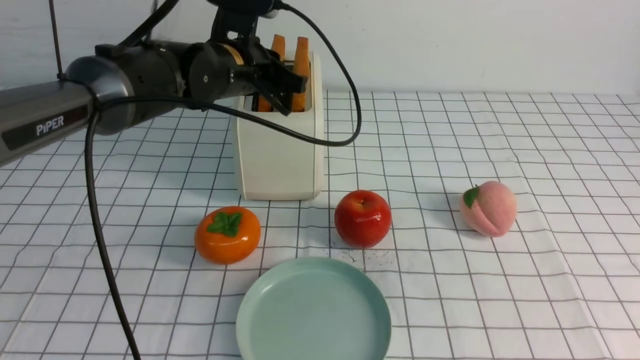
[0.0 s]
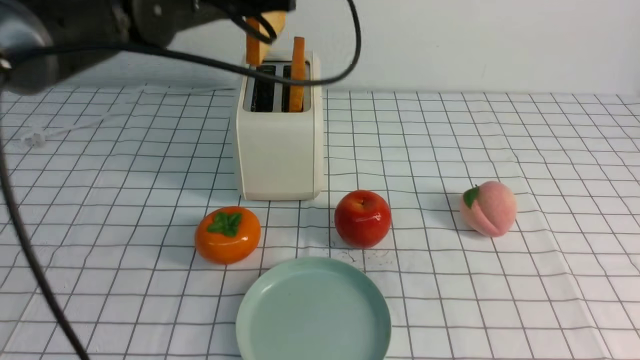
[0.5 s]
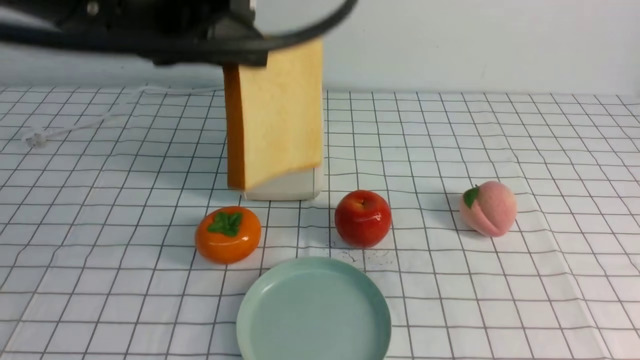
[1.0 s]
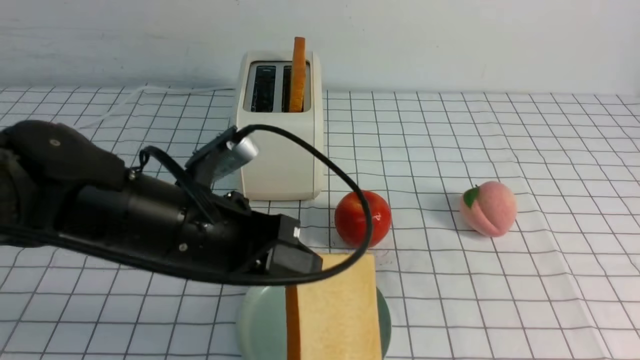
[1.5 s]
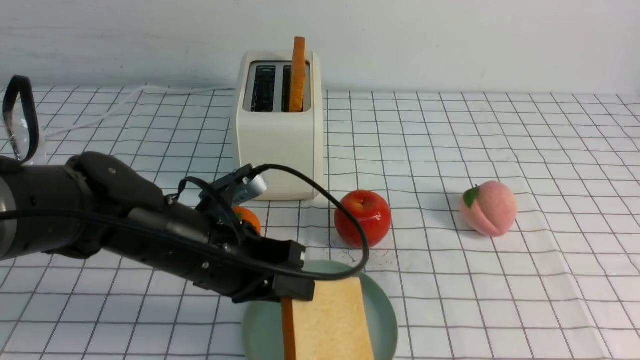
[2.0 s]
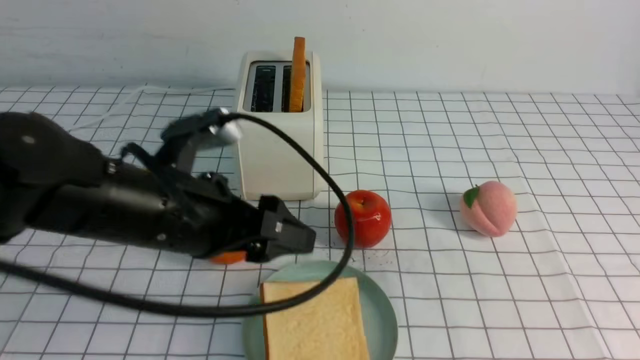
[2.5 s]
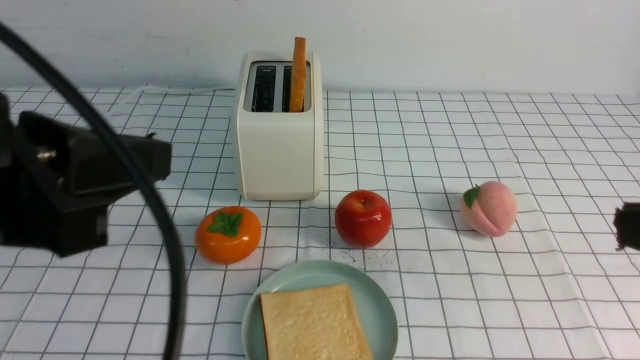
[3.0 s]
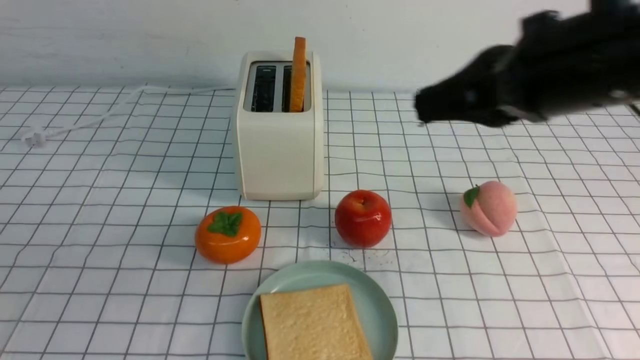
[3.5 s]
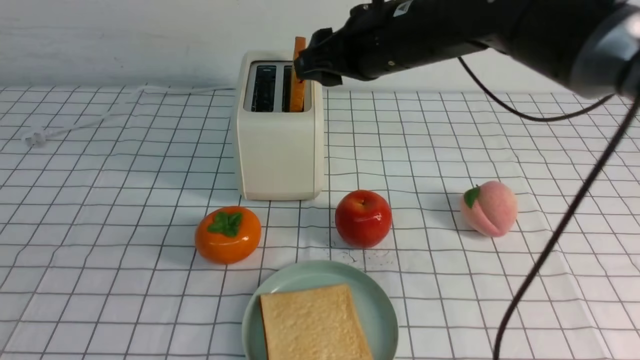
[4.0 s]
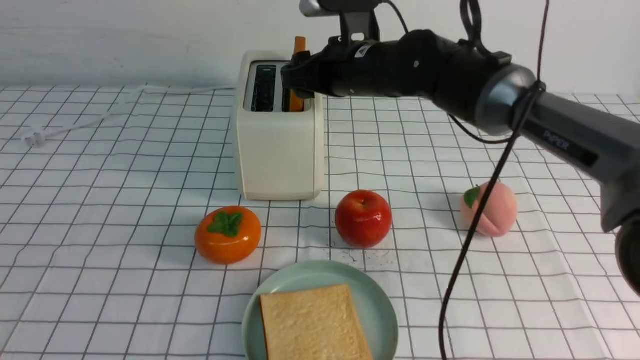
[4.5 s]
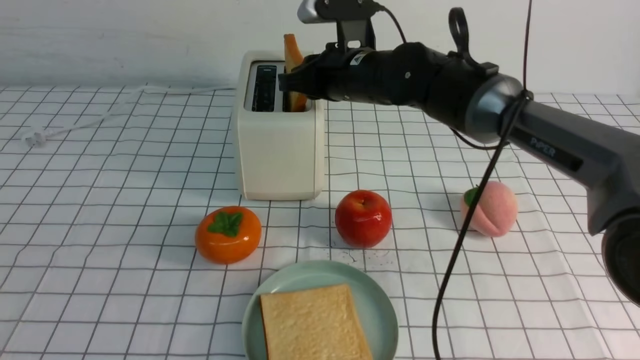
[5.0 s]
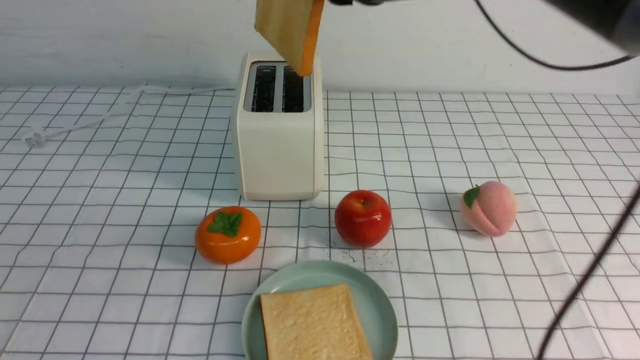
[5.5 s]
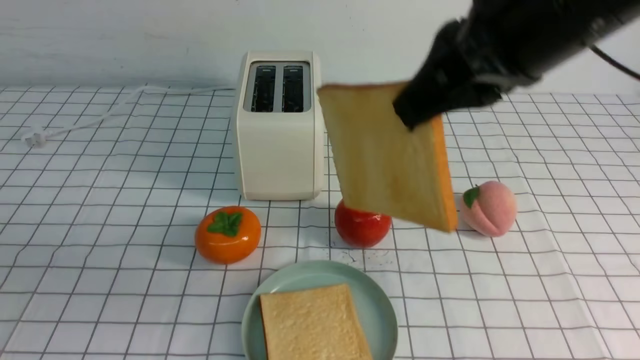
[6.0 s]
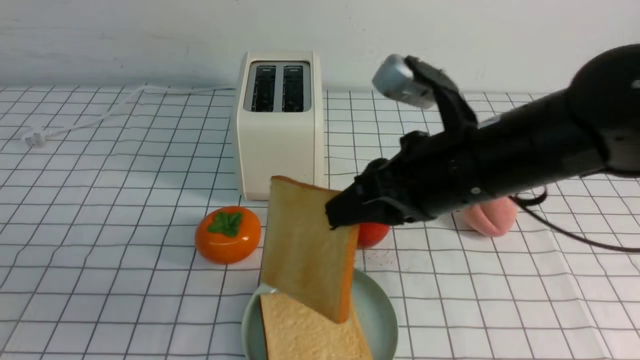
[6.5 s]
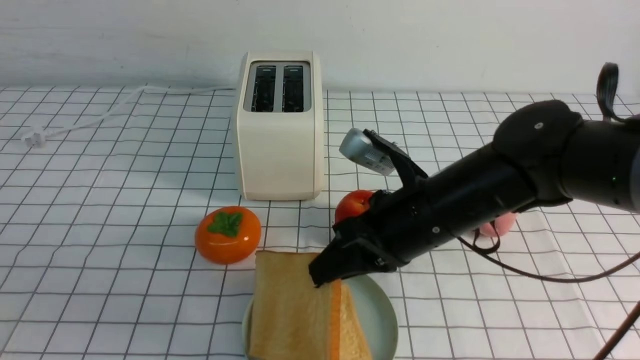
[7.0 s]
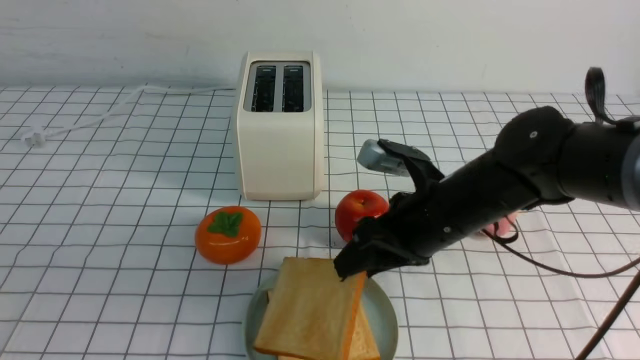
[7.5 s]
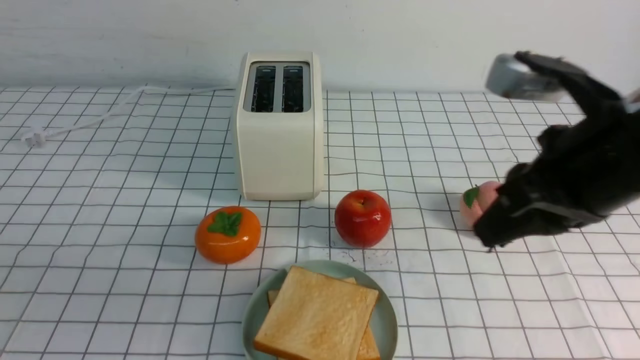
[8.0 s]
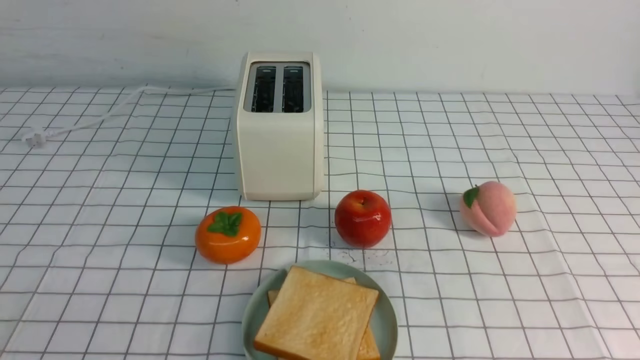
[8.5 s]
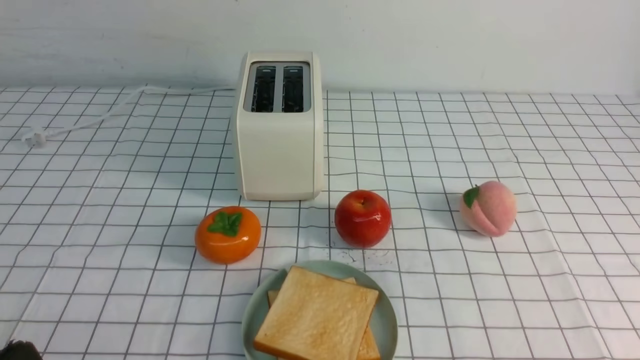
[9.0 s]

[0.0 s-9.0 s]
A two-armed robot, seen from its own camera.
Task of the whole recording: take toasted bread from bread machine on white checkered table place on plate.
Step, 0.5 to 2.5 s: use the left arm to put a slice of bread into the empty plate.
Step, 3.0 to 5.0 s: use the right arm to take out a slice of bread.
Step, 5.5 to 7.5 s: use the right arm to put a slice of bread into the plate.
0.0 to 2.0 s: The left gripper shifts about 20 cm backward and downward.
2.0 to 4.5 s: The right gripper travels forward and to the left by about 50 cm, and opens its fingers; the left gripper travels backward, upward and to the left by roughly 30 cm, and closes its fingers.
4.5 to 7.0 s: The right gripper moves backward, roughly 15 cm, and closes.
7.0 to 9.0 s: The right gripper heads backward and to the right, covering approximately 30 cm, and opens, then closes once more; the left gripper shifts about 10 cm downward.
